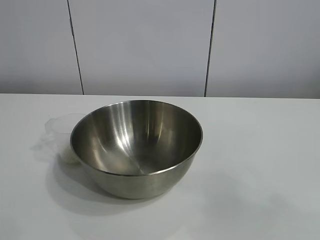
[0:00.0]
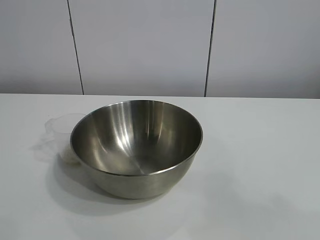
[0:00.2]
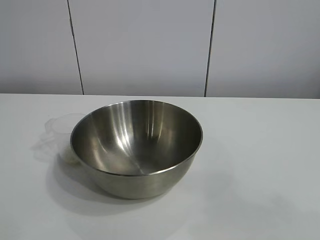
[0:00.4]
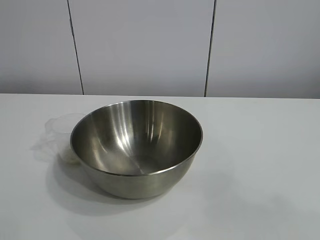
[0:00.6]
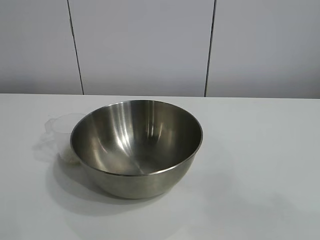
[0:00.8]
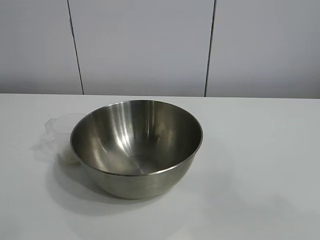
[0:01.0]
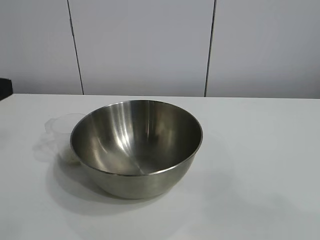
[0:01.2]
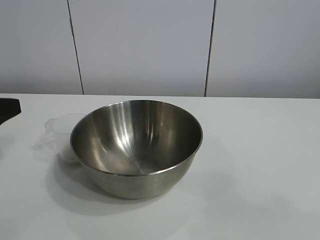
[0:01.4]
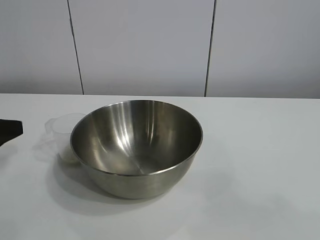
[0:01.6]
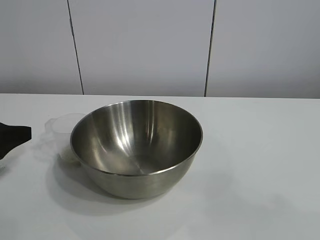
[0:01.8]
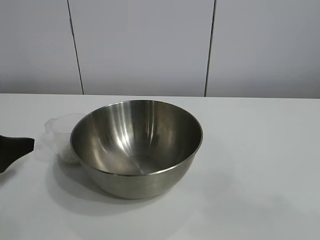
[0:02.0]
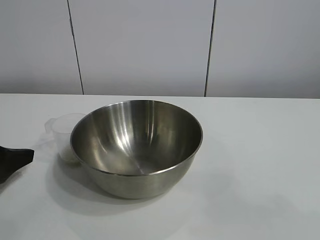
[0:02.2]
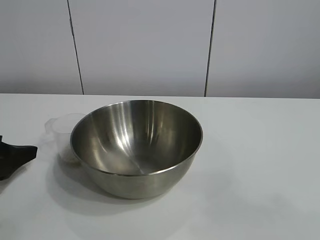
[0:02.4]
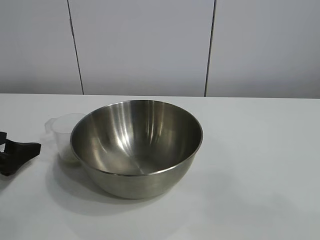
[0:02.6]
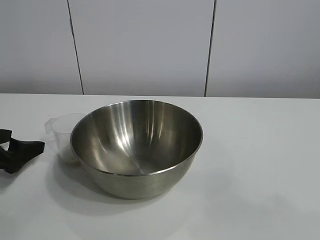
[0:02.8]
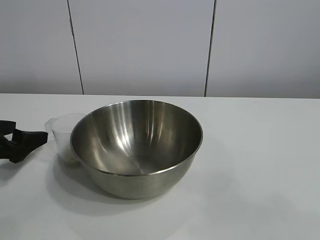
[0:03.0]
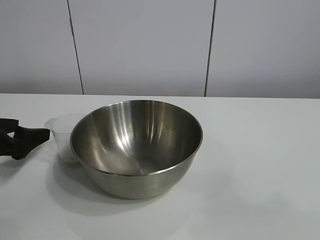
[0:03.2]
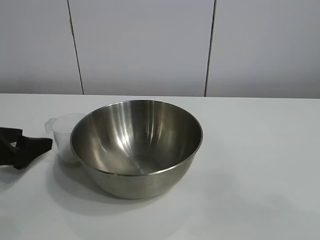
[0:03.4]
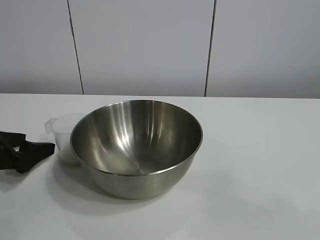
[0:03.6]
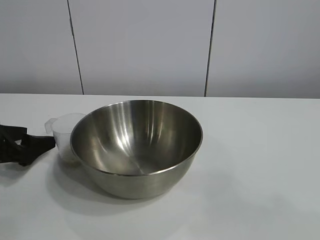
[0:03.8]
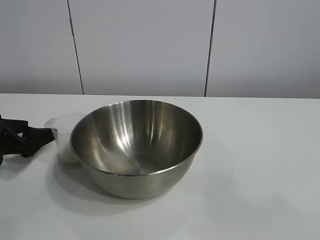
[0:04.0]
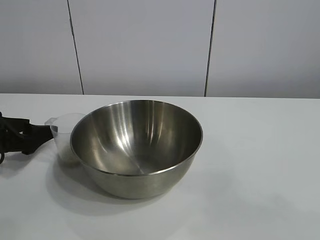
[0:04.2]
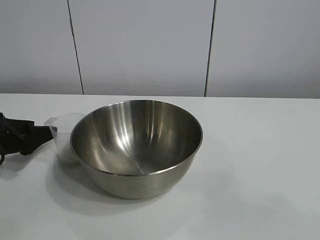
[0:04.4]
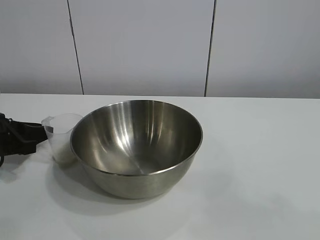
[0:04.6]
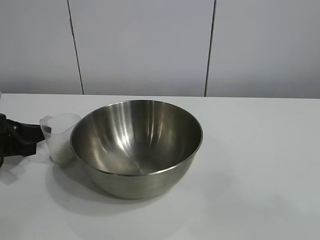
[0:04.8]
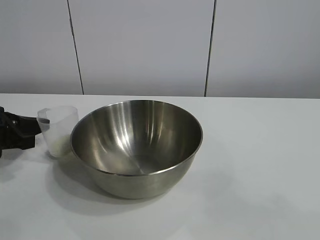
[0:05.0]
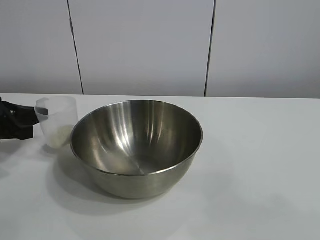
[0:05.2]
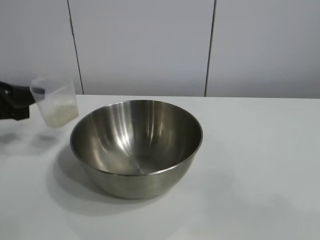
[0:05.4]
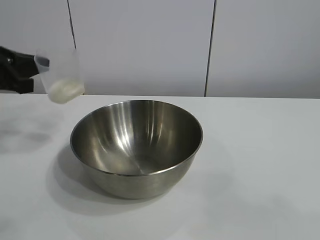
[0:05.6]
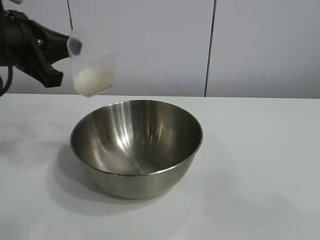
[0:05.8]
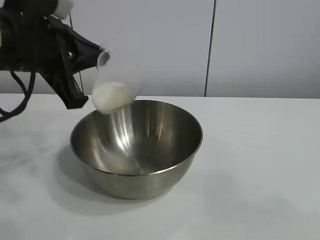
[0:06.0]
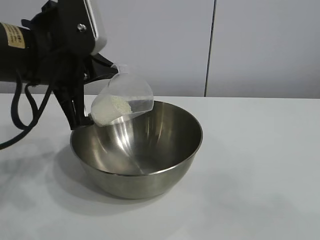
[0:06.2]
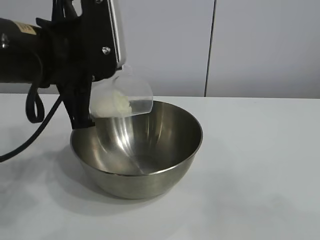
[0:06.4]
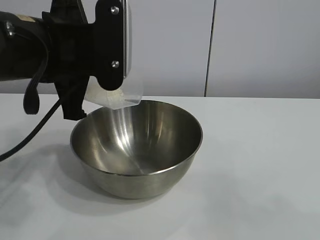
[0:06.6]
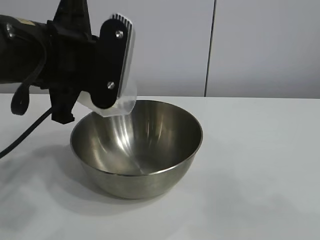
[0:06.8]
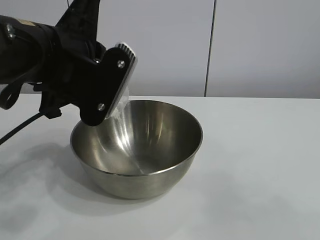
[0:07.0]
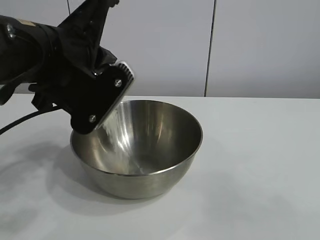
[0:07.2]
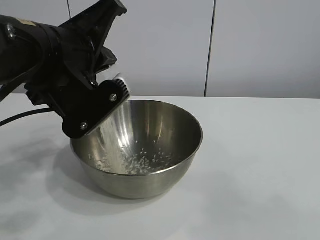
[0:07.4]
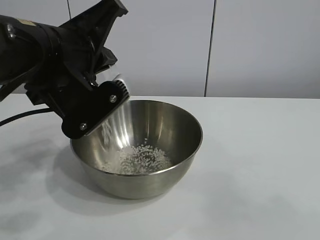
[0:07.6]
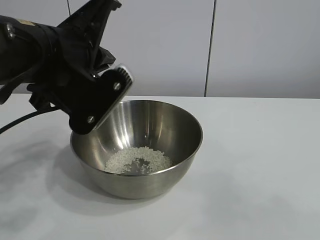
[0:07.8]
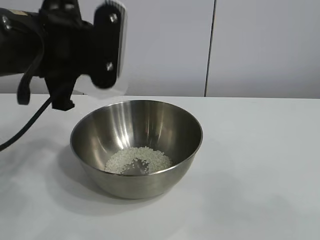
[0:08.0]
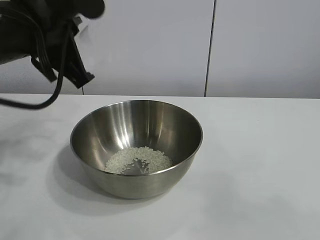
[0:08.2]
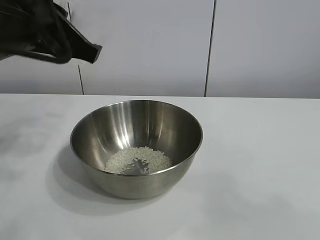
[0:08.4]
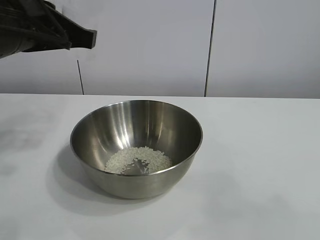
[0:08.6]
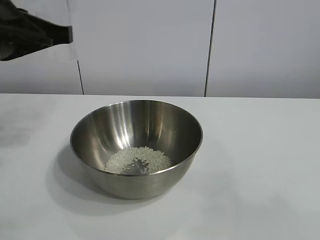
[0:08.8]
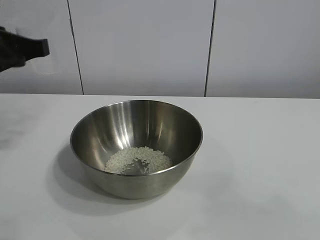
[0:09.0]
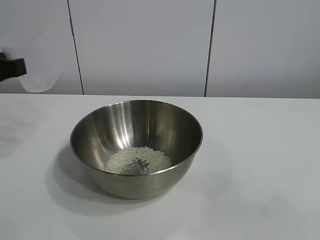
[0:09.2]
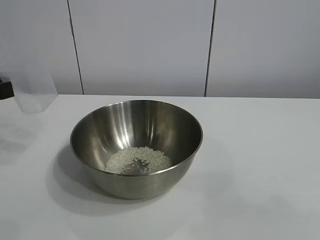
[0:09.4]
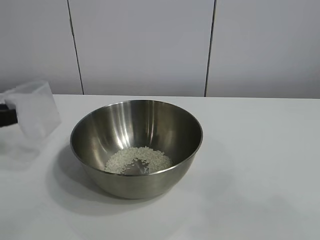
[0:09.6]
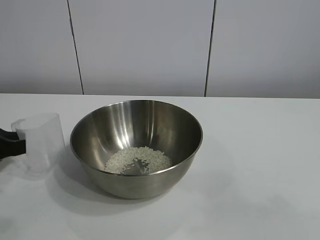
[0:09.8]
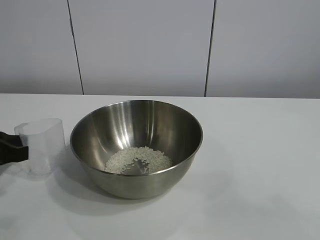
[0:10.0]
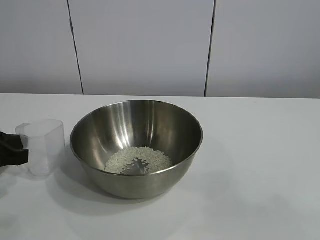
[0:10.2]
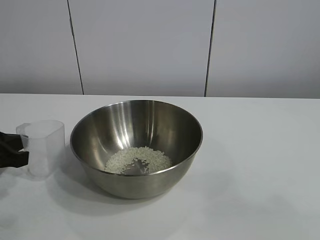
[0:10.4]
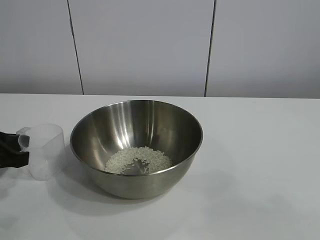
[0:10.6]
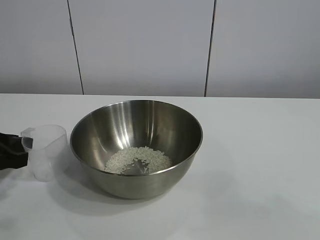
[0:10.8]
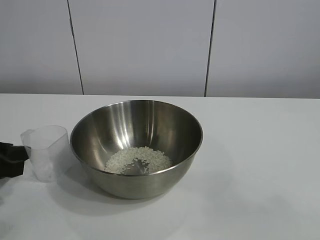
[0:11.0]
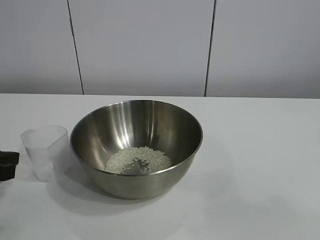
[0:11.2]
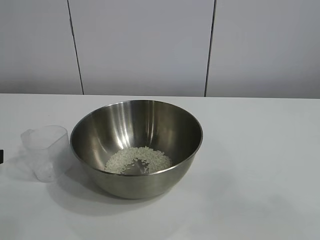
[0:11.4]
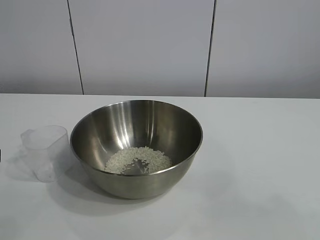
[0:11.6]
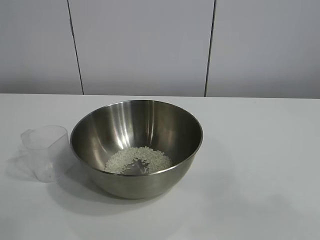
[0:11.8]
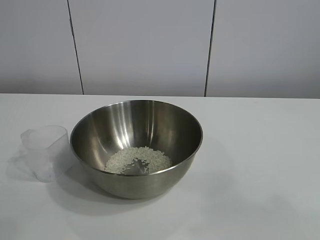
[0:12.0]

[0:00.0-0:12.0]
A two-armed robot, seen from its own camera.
Task of the whole recording: the right gripper grasp the rice container and place it in the center of the table, the left gripper grasp the rice scoop and pour the rice into the rice container.
Step, 0:00.0 to 0:04.8: Grasp the cup with rice in it with left gripper.
Step, 0:05.0 to 0:07.8: Pour the rice from the cup into the bowl with the left gripper.
Step, 0:08.0 to 0:10.8: Place the cup on the table with the left gripper.
